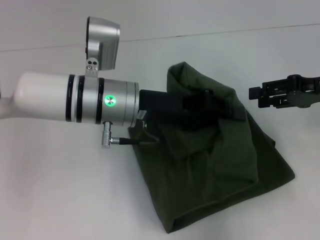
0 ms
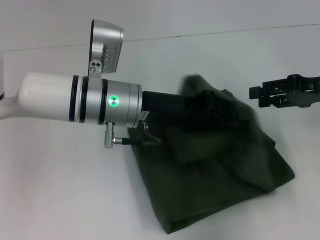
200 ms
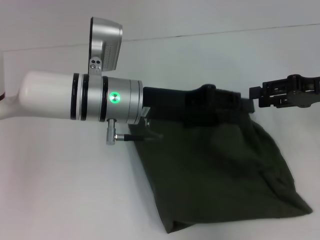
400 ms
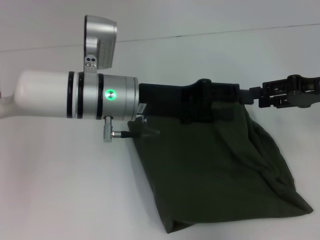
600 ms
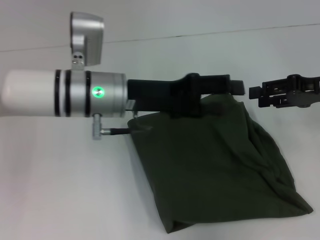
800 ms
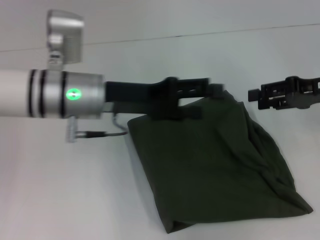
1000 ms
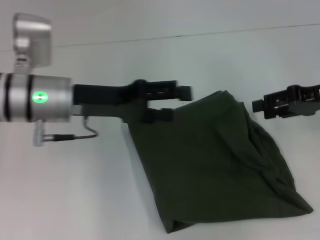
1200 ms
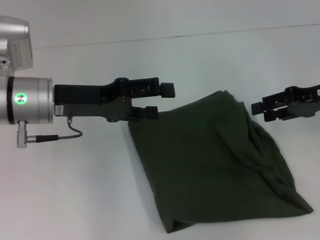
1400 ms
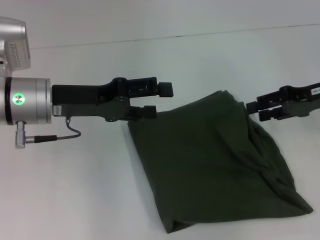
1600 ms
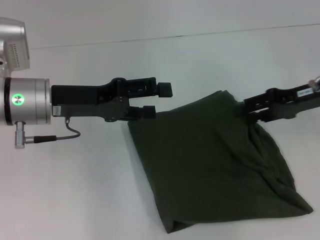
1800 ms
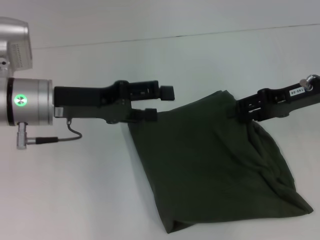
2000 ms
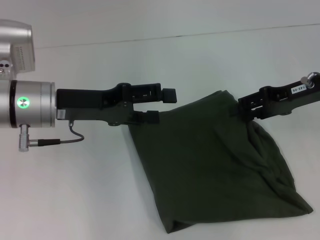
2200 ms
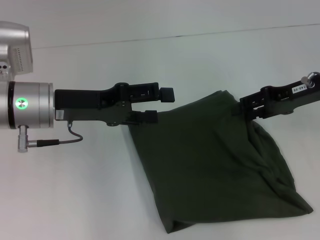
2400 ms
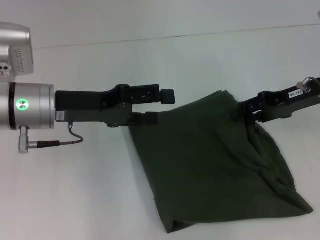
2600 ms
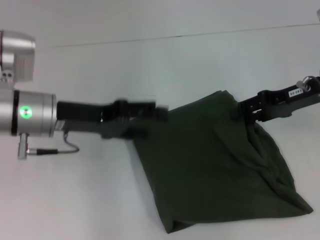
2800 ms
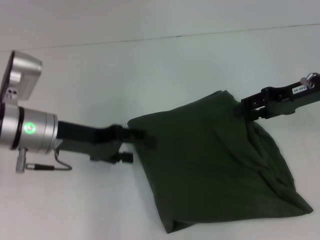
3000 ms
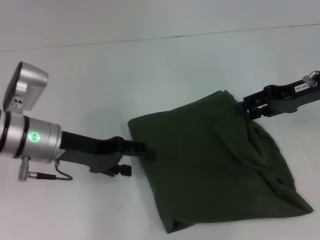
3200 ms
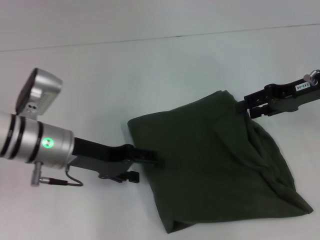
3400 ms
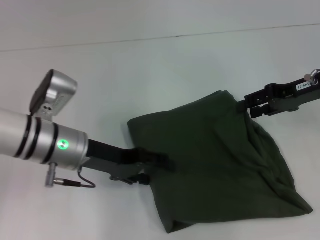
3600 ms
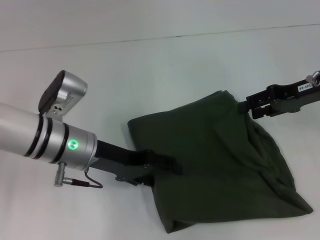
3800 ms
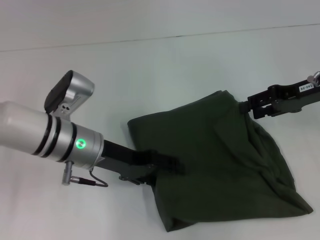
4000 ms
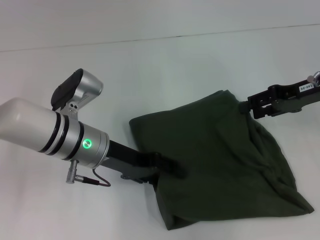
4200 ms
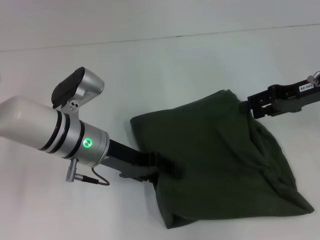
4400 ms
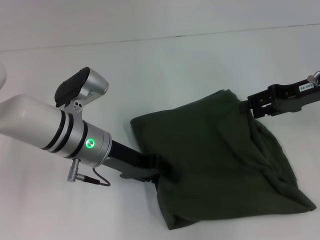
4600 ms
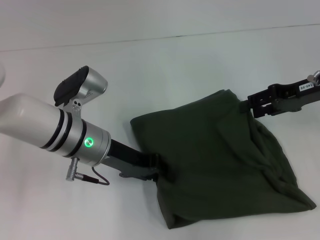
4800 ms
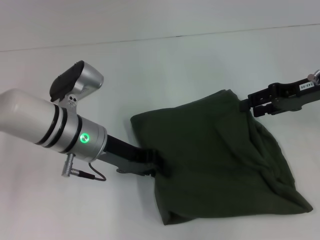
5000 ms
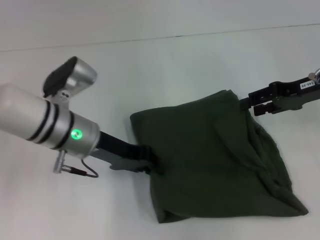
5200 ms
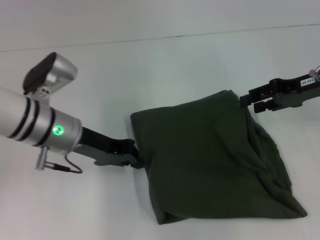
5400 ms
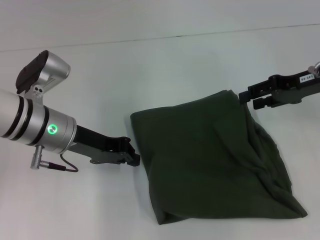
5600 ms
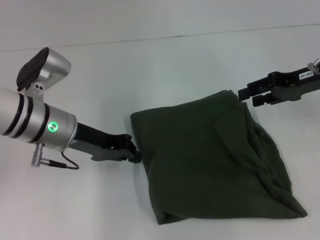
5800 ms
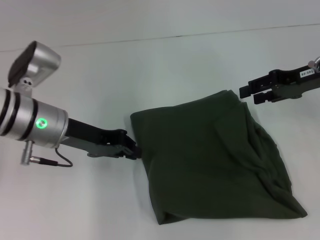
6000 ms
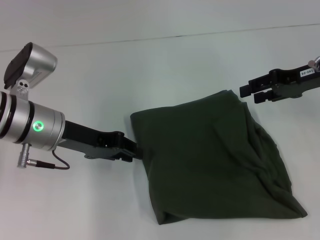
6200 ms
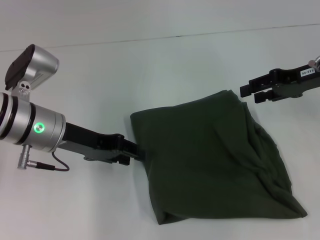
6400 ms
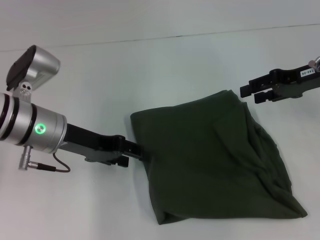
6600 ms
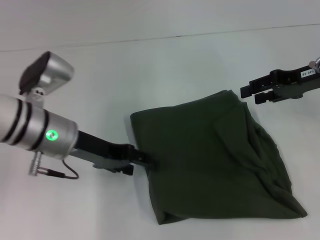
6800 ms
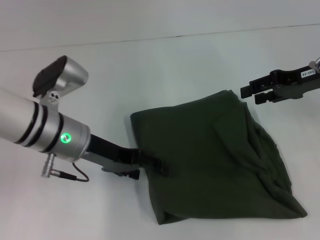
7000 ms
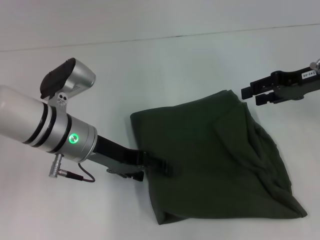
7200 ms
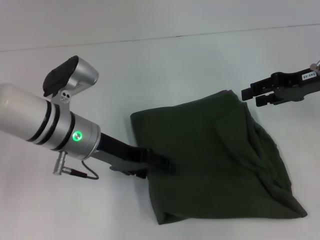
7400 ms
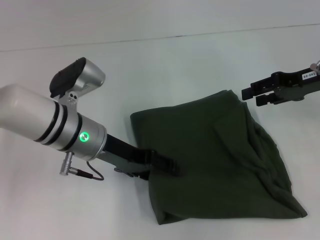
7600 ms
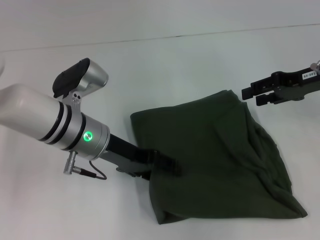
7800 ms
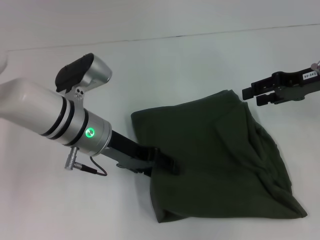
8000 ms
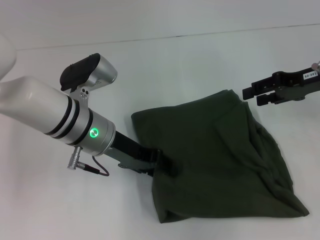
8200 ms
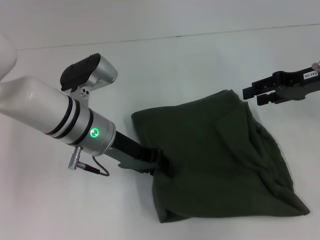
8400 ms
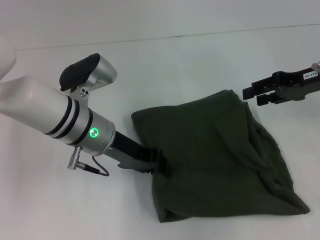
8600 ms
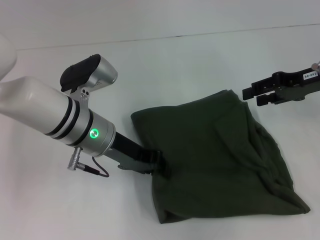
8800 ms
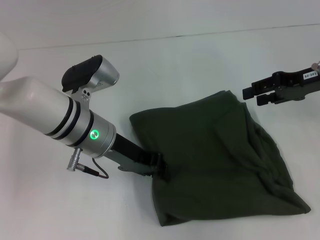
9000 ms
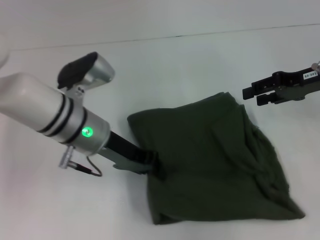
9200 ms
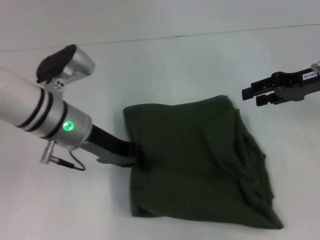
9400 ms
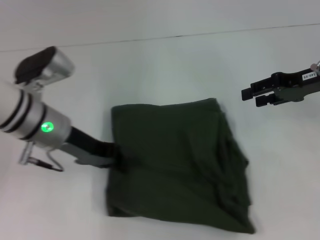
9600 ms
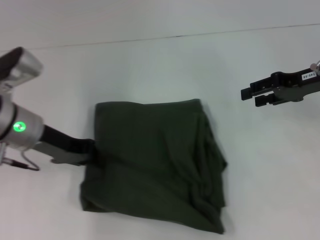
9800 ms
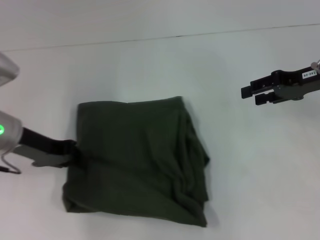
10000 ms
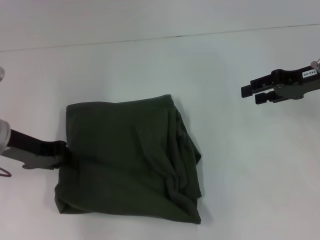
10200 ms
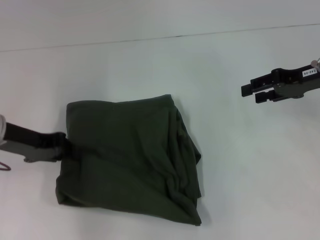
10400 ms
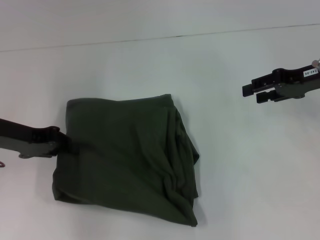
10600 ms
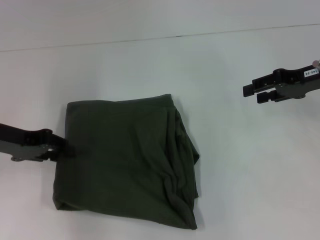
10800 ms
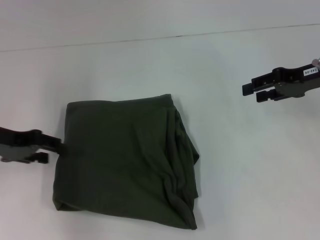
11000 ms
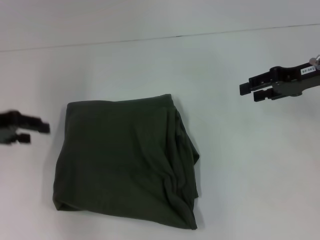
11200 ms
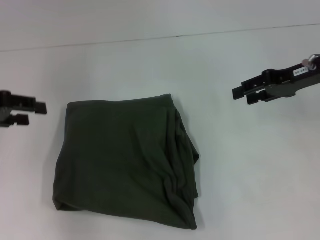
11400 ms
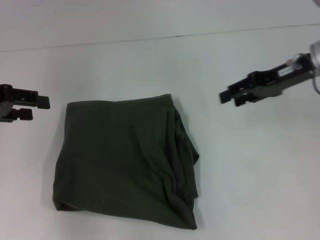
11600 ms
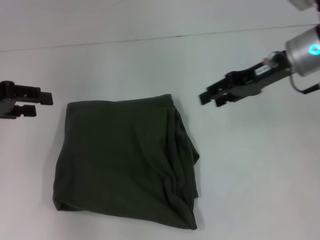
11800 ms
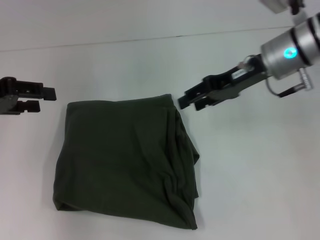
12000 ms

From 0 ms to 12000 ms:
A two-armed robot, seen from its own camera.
From 0 ms to 1600 ms: The left gripper heads to the left, covering roughly 10 cm, and opens its fingers.
From 1600 ms to 3000 ms: The grippers make only small movements.
From 3000 ms to 4400 ms: The left gripper heads to the right, covering some 5 cm.
From 4400 ms to 6000 ms: The left gripper is displaced to the left by approximately 5 cm, and closes.
From 6000 ms to 7600 ms: The left gripper goes roughly 5 cm to the right, and opens.
From 7600 ms to 9000 ms: The left gripper closes.
From 9000 ms to 10400 ms: The left gripper travels to the left by roughly 15 cm.
From 10400 ms to 12000 ms: The right gripper is displaced to the left by about 10 cm. The left gripper shifts roughly 10 cm upward and to the left, and opens.

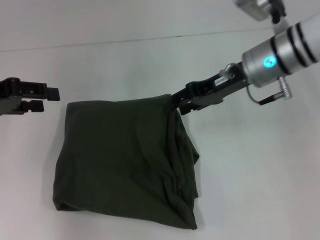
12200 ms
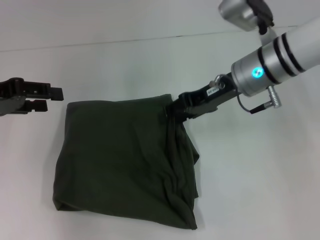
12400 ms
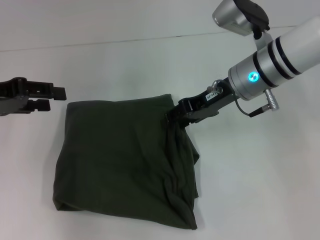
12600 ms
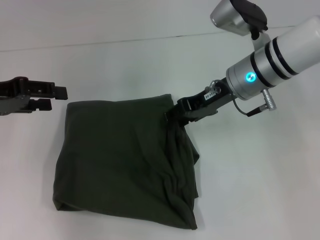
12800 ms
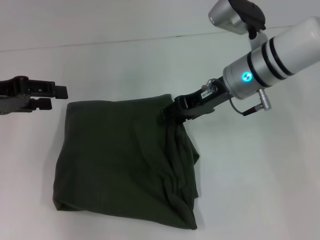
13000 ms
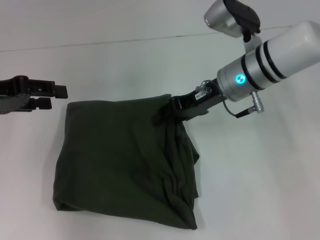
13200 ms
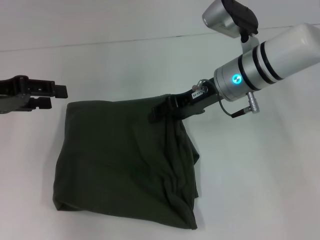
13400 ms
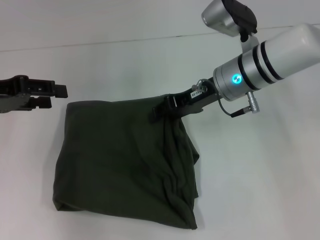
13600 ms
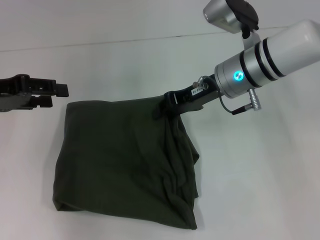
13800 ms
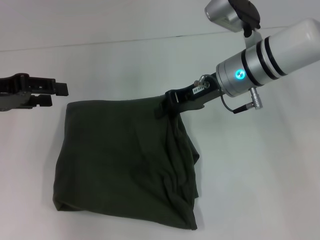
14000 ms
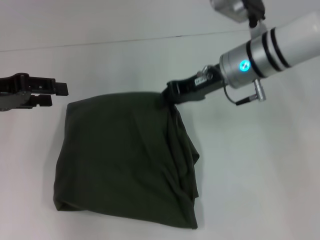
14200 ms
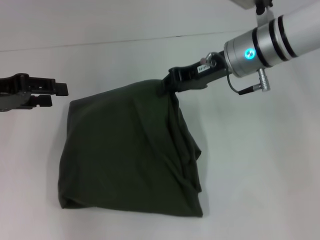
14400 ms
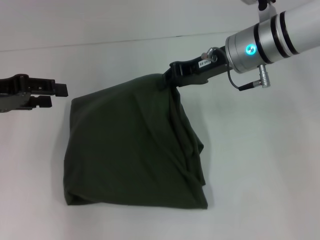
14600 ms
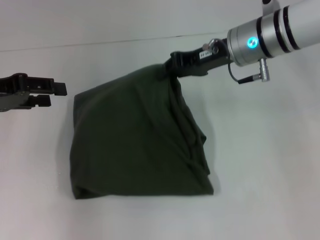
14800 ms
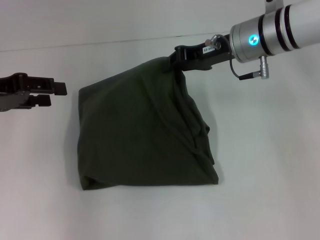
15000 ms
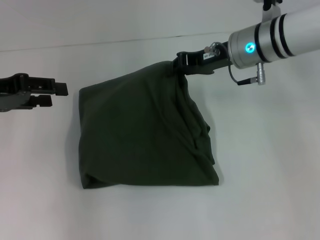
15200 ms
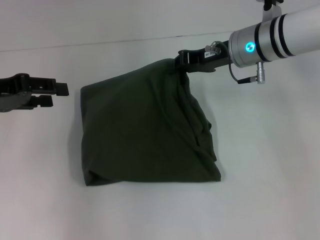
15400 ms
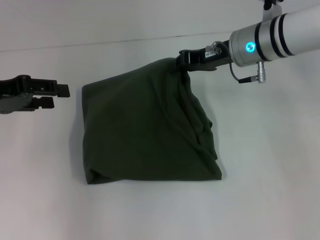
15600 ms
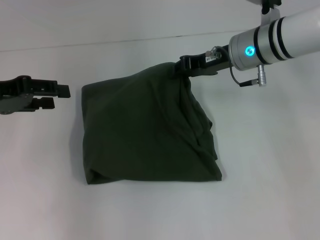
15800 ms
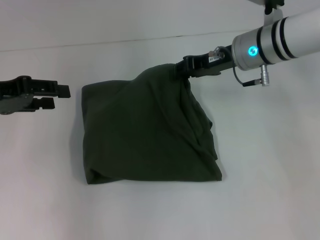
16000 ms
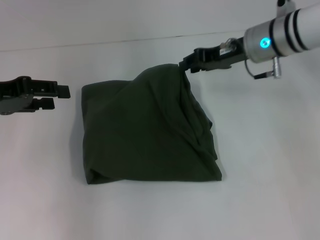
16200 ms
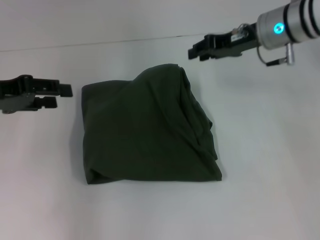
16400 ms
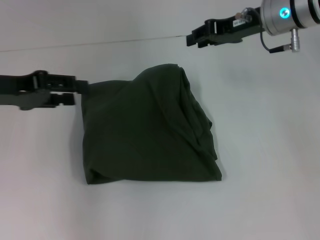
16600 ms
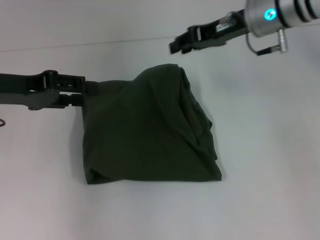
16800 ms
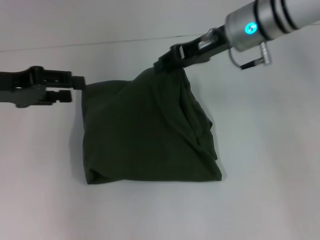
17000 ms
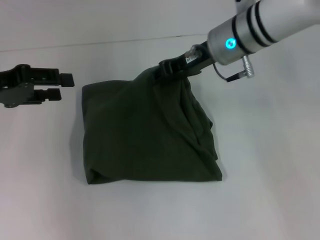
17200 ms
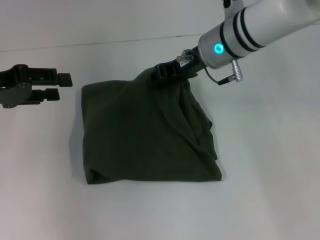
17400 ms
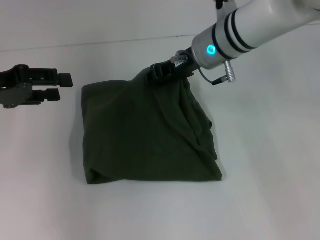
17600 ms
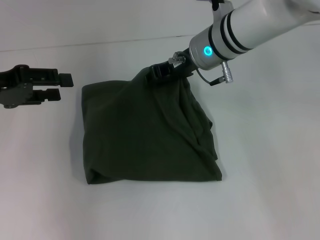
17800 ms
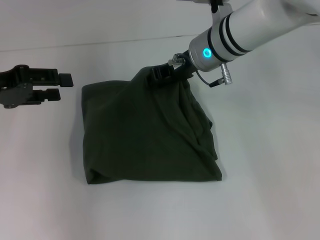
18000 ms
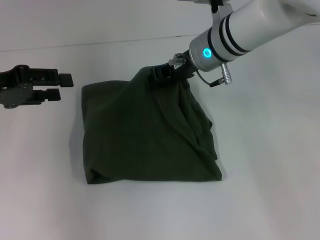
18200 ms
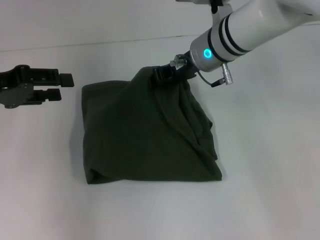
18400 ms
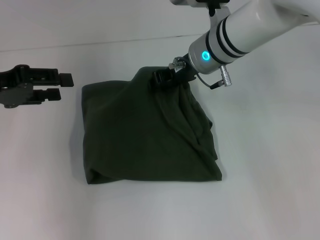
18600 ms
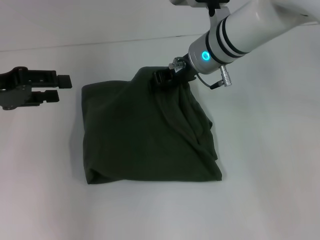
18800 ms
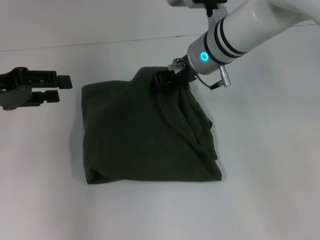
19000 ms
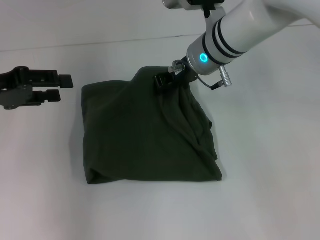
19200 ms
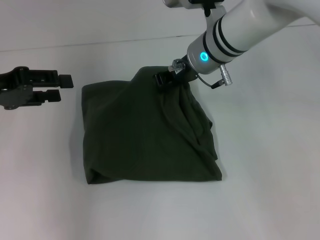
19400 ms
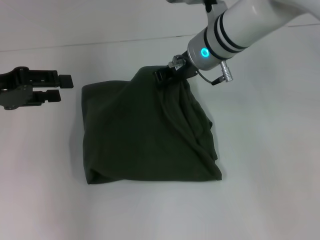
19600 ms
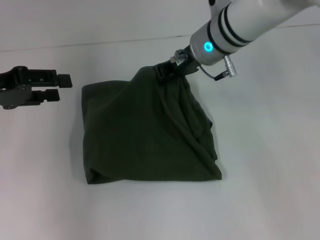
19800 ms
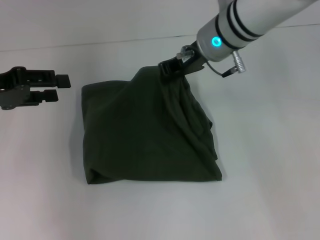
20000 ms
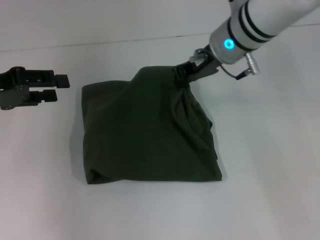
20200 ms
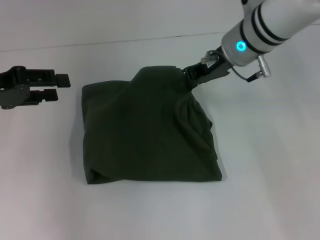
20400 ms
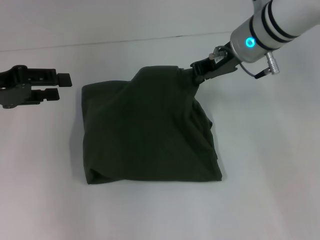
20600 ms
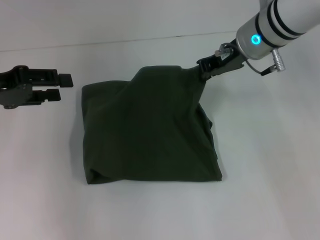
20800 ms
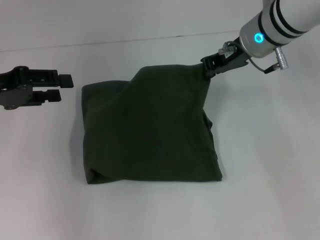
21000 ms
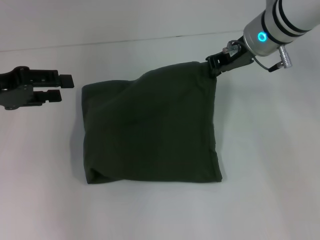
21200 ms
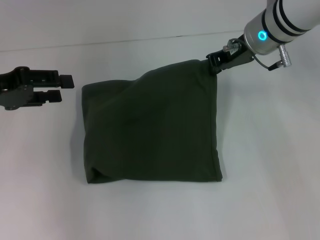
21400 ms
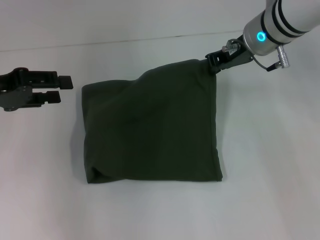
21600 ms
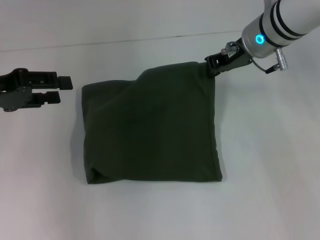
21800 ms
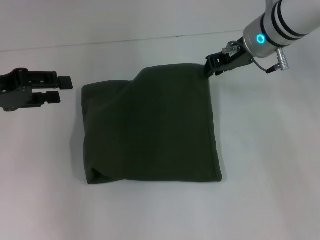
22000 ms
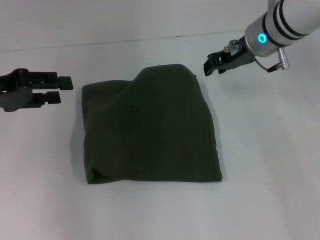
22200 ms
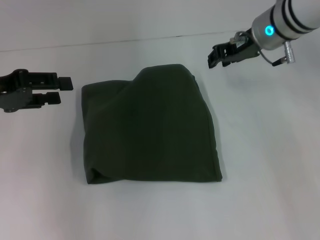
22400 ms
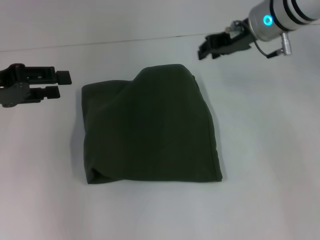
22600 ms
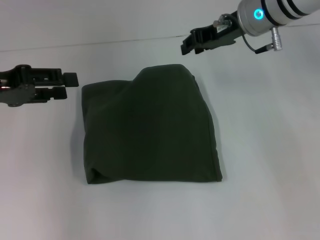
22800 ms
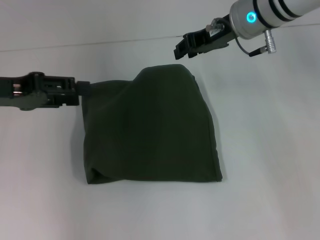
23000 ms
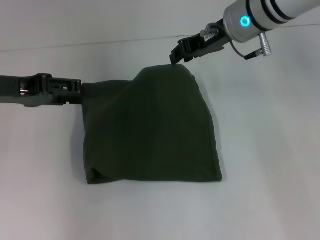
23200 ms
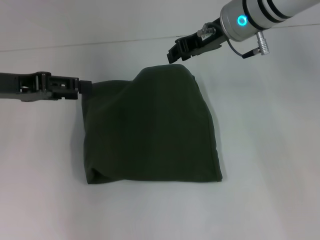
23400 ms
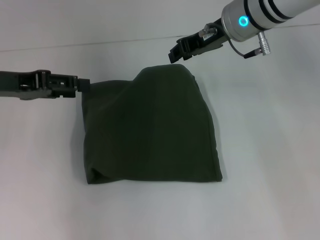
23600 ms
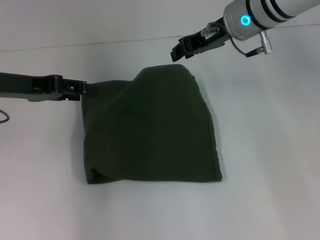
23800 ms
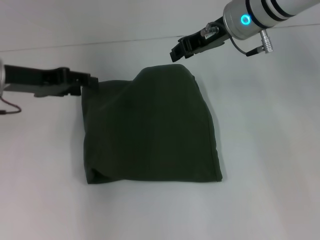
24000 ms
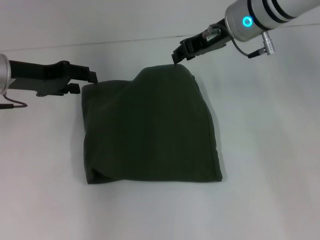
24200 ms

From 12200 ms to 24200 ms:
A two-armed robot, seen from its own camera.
From 12200 ms to 13800 ms: There are only small adjustments of the grippers.
From 15200 ms to 16600 ms: The right gripper changes place by some 5 cm.
From 16600 ms to 18200 ms: The right gripper shifts roughly 10 cm to the left.
From 18200 ms to 19800 ms: The right gripper closes up.
From 19800 ms to 21200 ms: The right gripper shifts some 5 cm to the right.
From 21200 ms to 22600 ms: The right gripper opens.
From 22600 ms to 24200 ms: The left gripper shifts about 10 cm forward and to the right.
